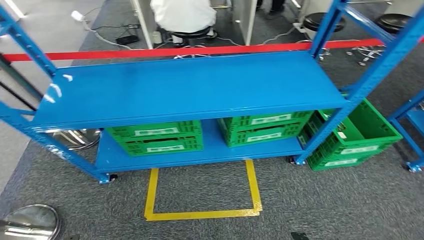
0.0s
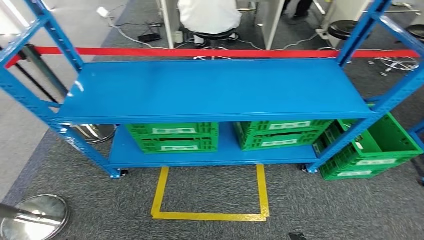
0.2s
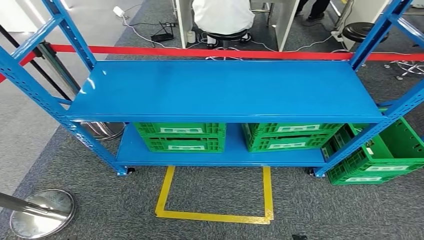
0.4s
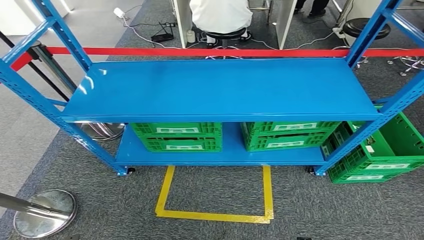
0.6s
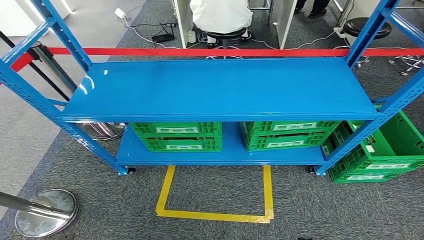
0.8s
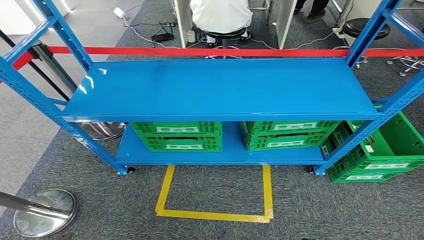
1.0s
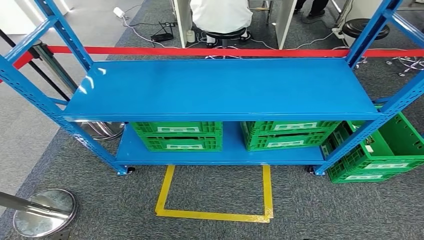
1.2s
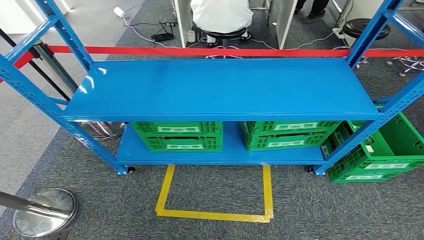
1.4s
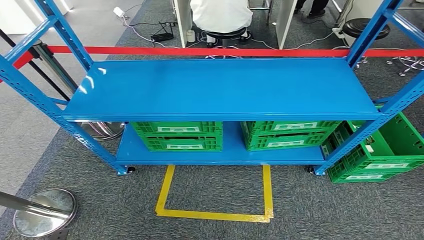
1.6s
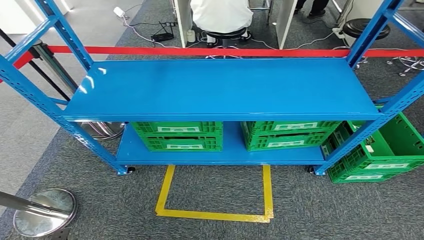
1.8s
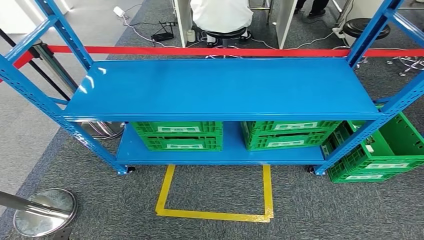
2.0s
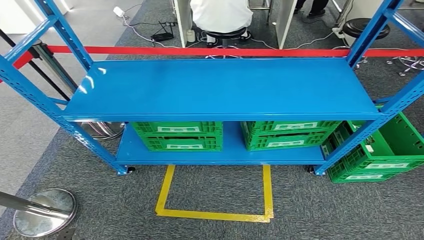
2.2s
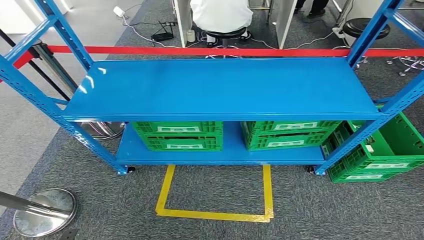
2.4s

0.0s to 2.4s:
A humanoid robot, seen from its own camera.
Step, 0.0s to 2.2s: Return to the initial position at the workbench.

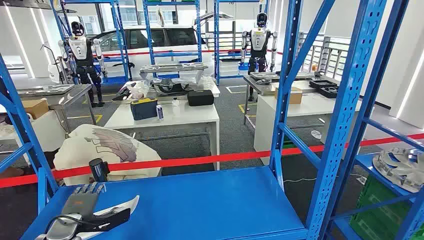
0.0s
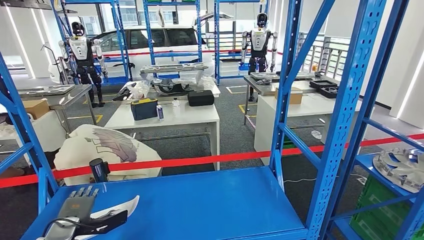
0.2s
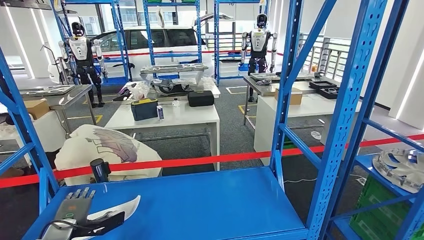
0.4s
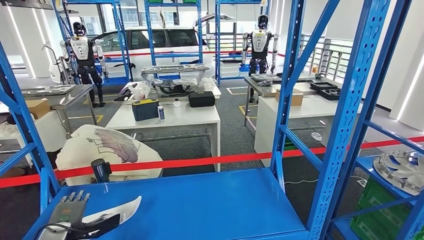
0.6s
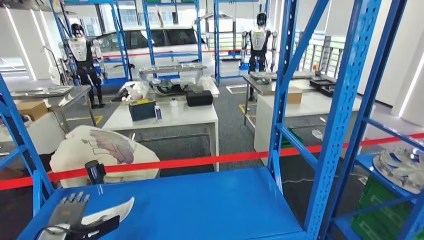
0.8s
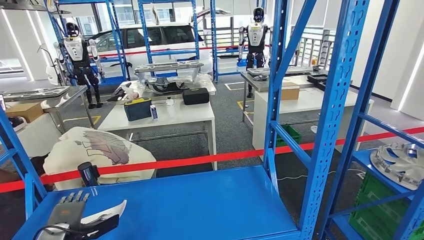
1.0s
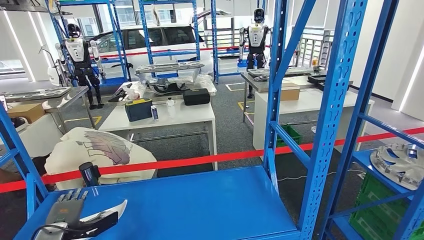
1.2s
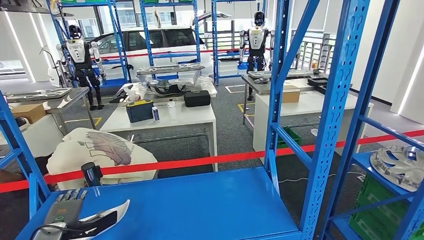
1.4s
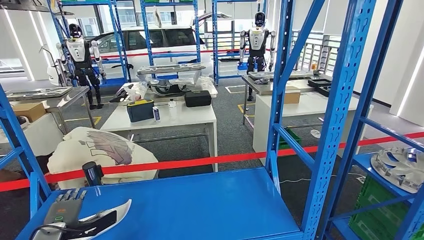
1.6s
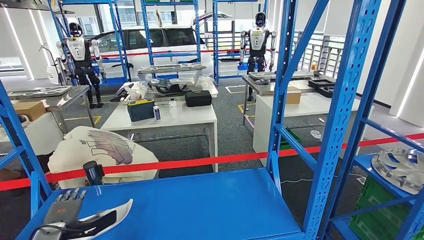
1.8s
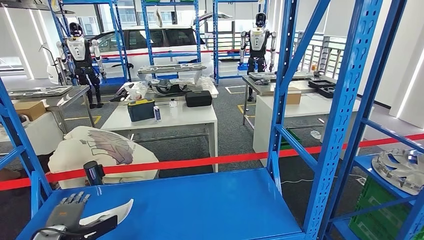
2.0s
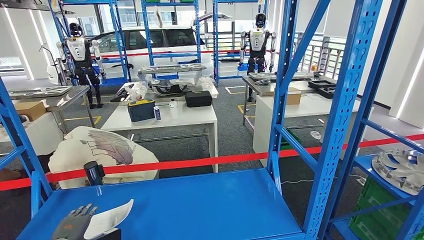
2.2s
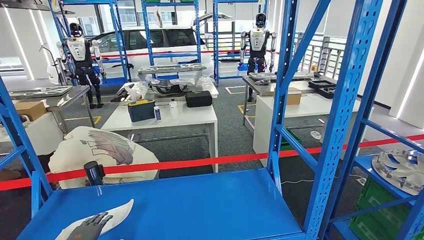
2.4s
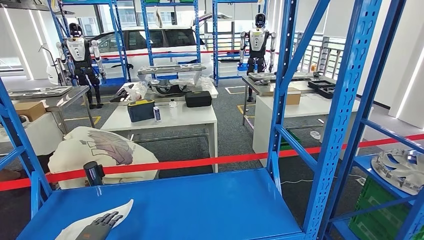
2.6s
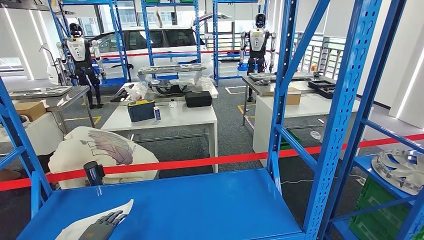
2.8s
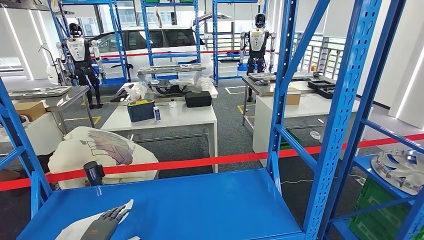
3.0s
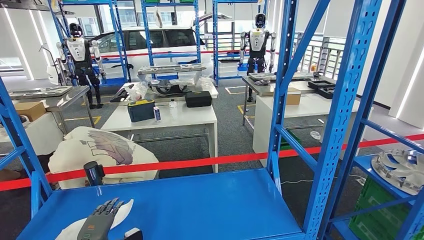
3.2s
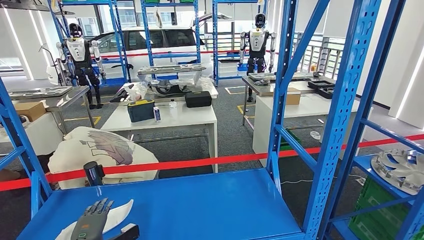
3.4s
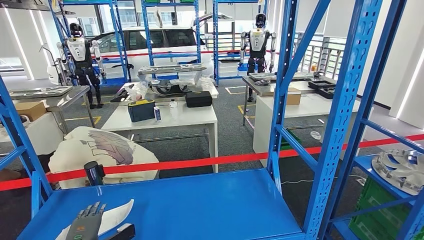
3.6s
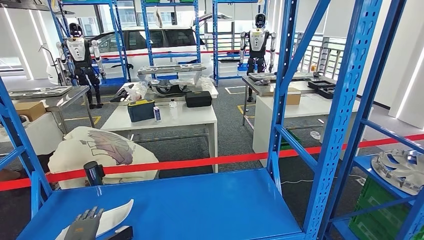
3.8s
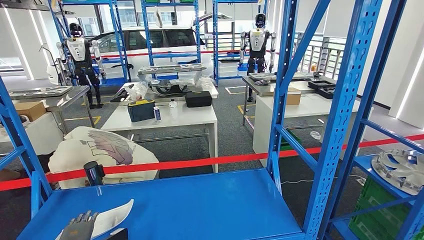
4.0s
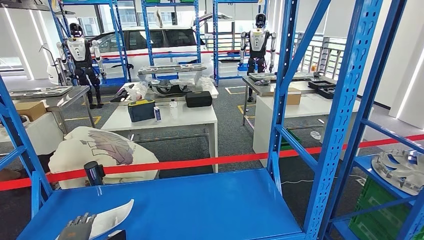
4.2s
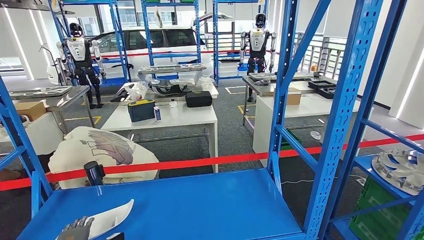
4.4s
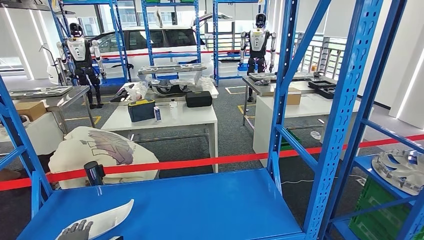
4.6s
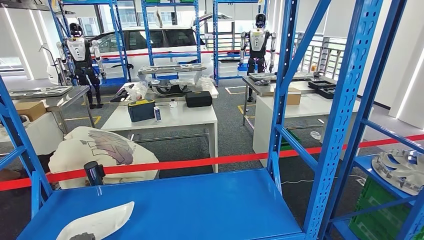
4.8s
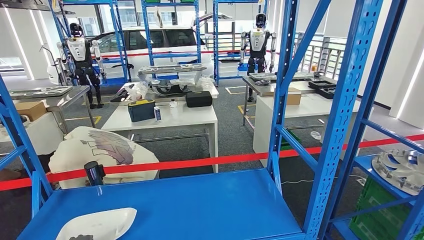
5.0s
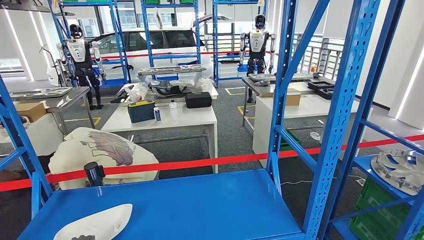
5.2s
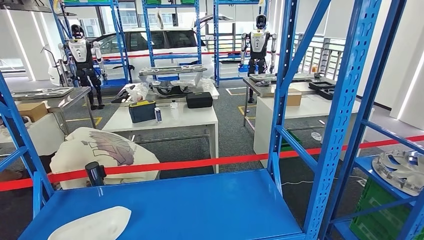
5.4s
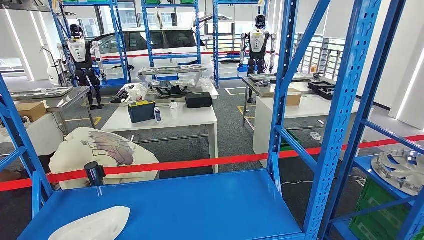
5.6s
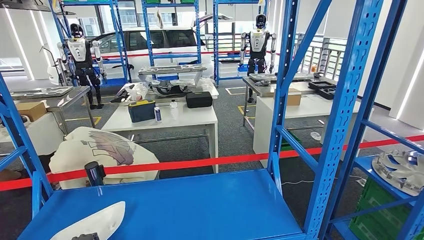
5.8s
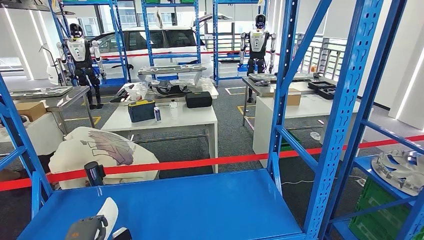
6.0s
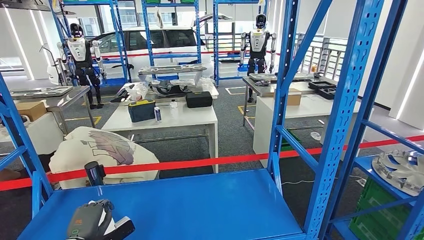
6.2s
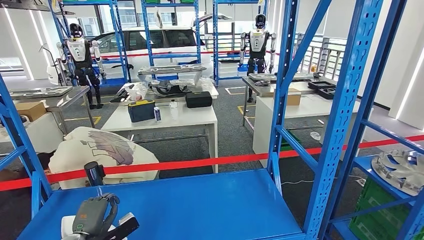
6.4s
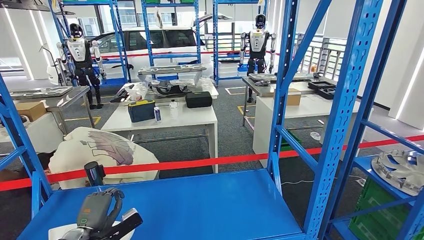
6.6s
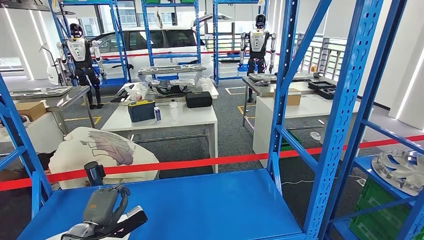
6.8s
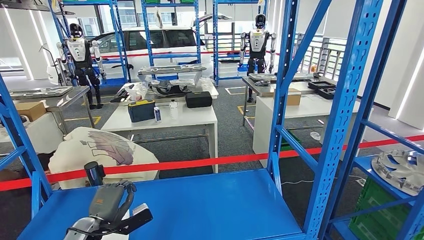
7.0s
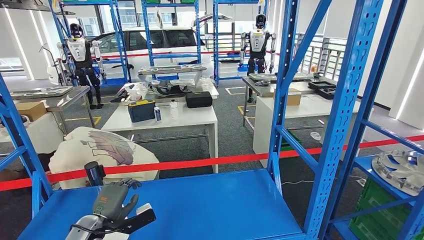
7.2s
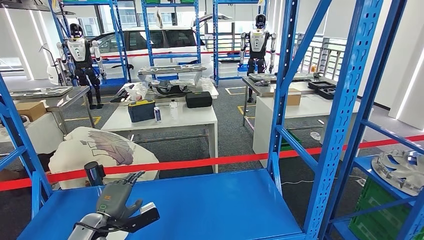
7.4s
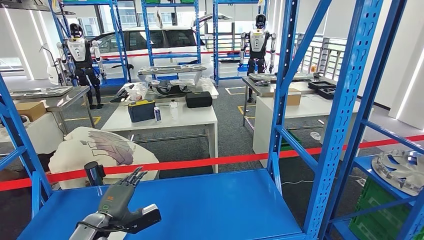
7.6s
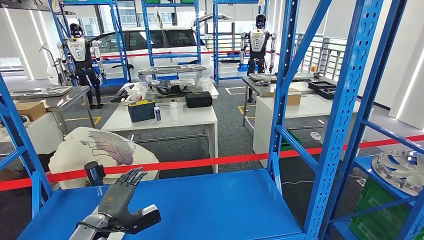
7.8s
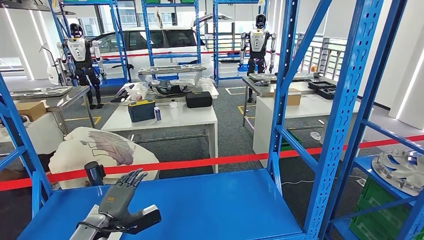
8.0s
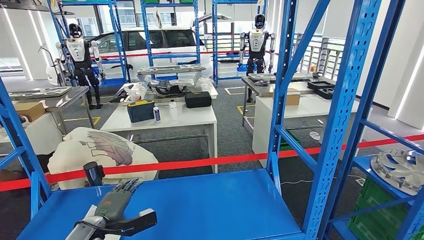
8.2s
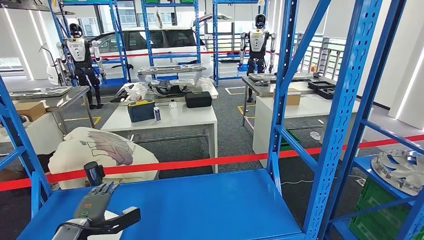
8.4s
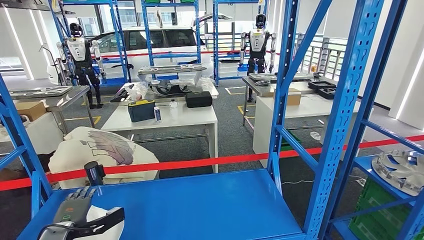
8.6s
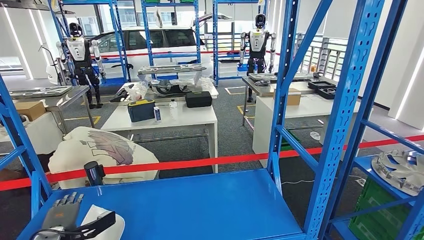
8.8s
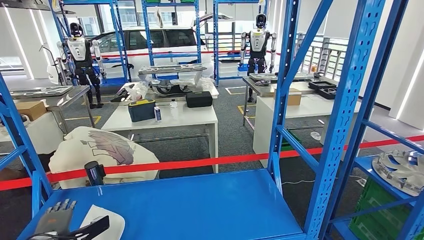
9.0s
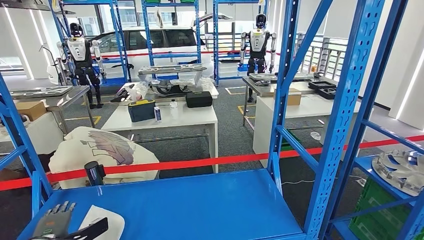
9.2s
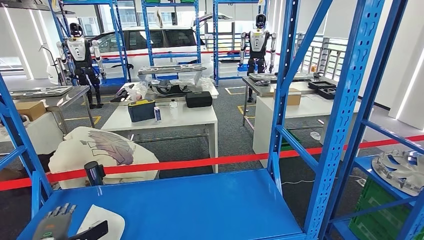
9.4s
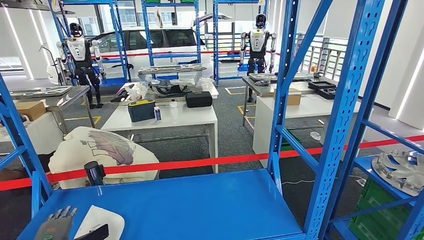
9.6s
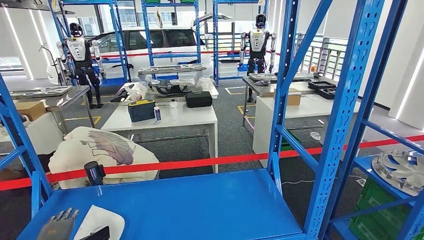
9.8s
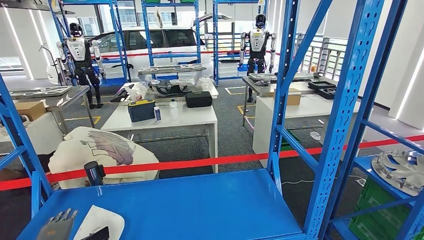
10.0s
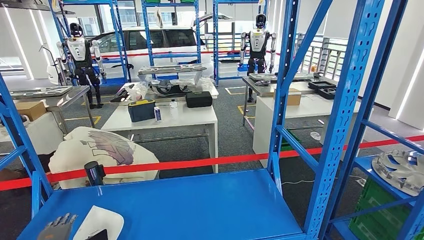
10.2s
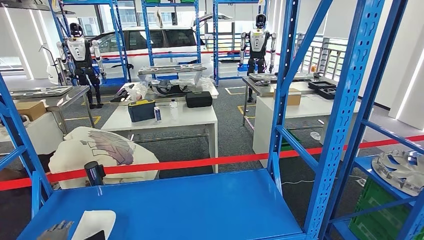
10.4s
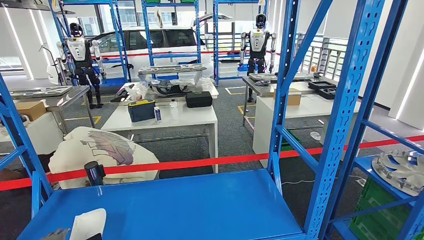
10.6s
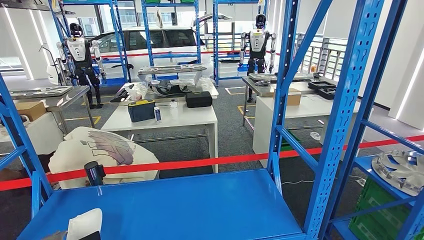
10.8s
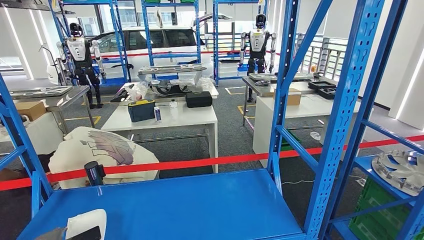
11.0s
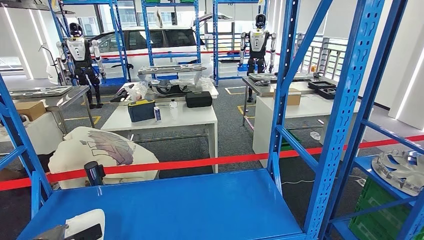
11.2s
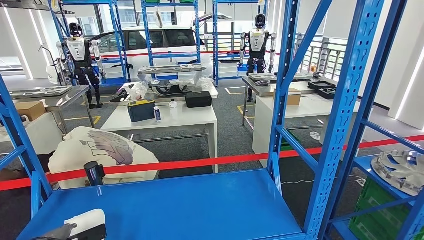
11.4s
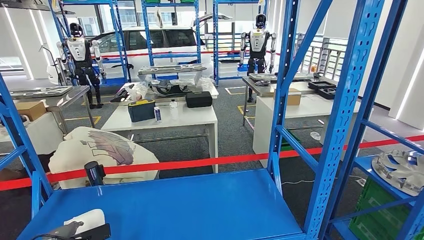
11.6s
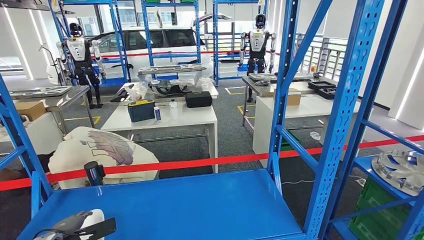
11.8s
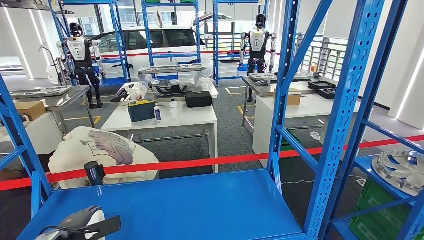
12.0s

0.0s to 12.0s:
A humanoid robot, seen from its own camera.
1.6s to 3.0s: The left hand heads downward and to the right, covering approximately 10 cm.
6.0s to 7.6s: The left hand goes about 10 cm upward and to the right.
7.6s to 9.0s: The left hand shifts about 15 cm to the left.
9.0s to 10.4s: The hands move only a little.
10.4s to 12.0s: The left hand ends up some 5 cm from where it was.

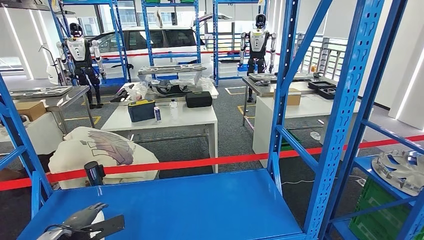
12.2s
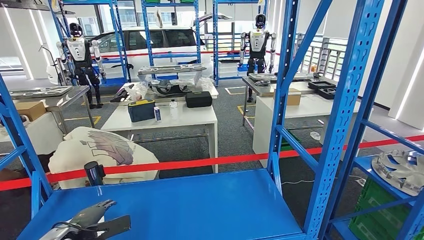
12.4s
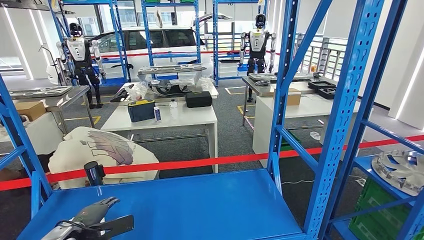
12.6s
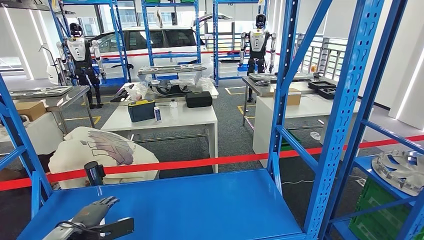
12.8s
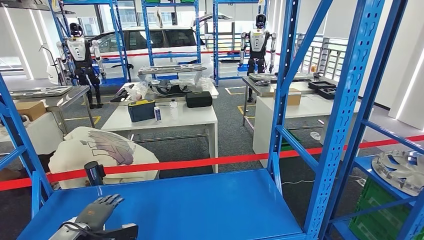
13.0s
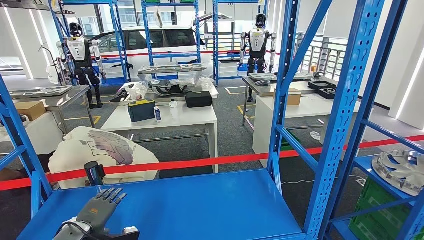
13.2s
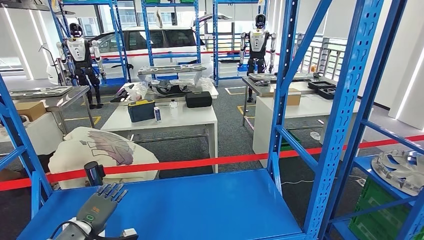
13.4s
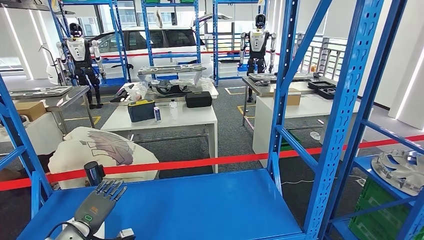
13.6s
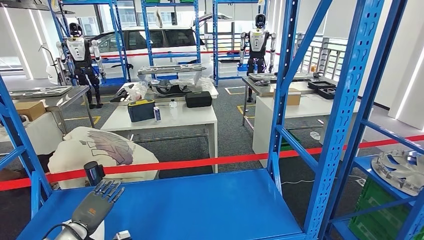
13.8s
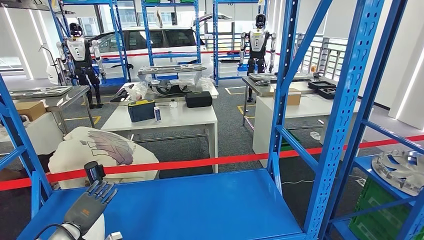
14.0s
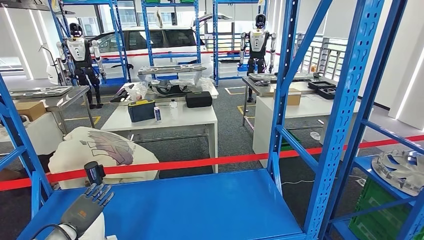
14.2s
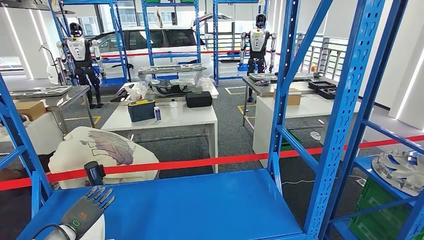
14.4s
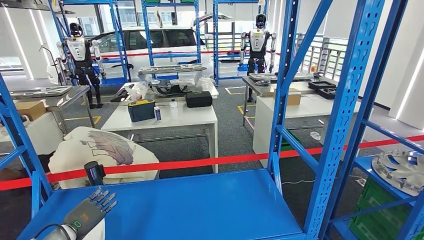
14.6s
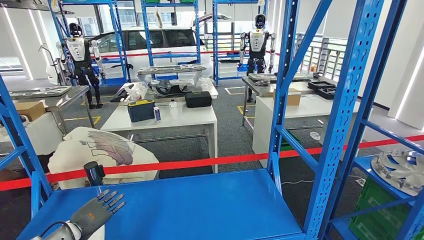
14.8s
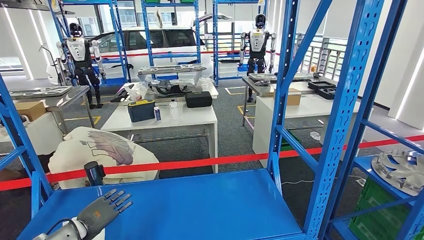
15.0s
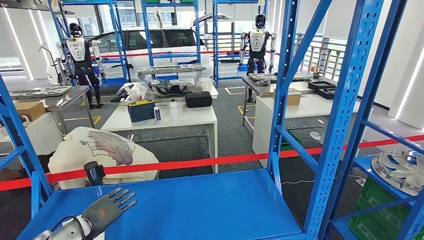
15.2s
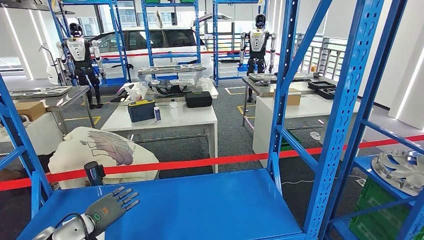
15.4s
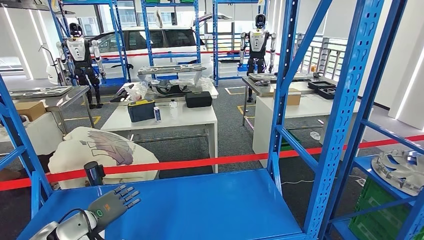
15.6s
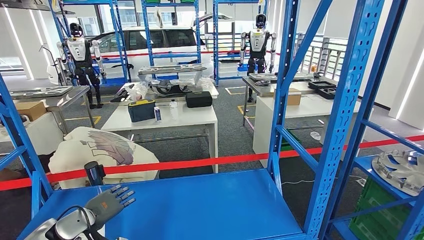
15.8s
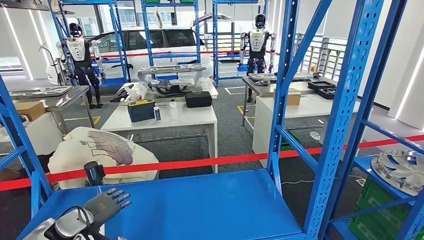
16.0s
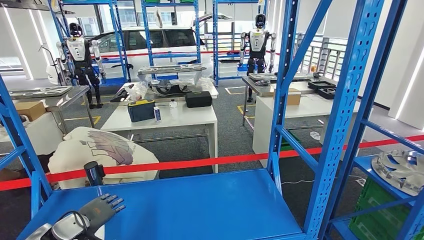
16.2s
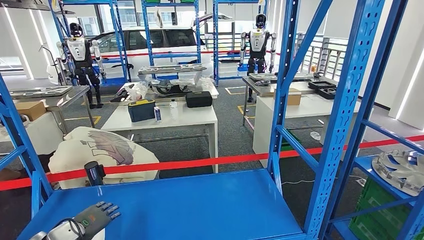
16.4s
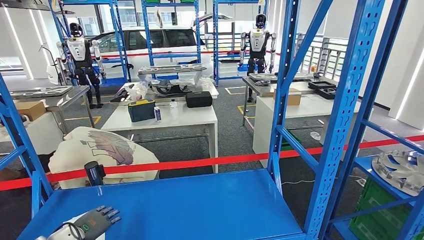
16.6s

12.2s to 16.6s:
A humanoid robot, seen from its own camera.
13.6s to 15.2s: The hands move only a little.
